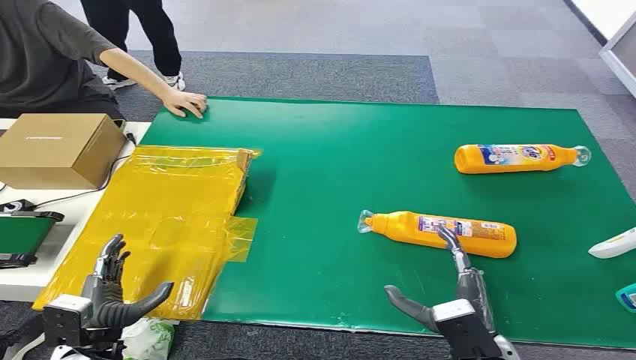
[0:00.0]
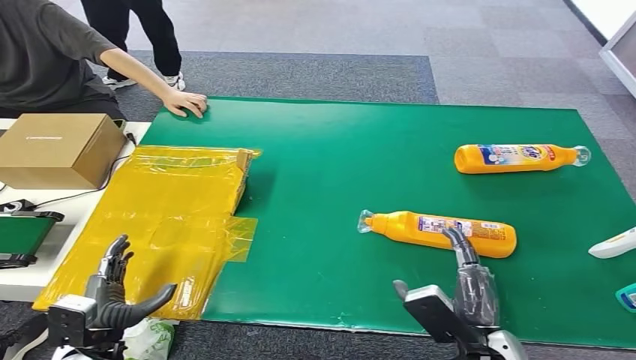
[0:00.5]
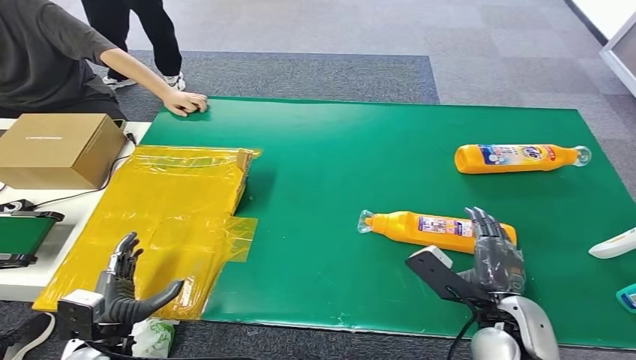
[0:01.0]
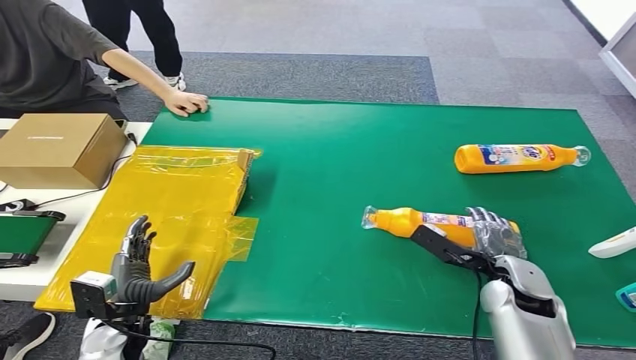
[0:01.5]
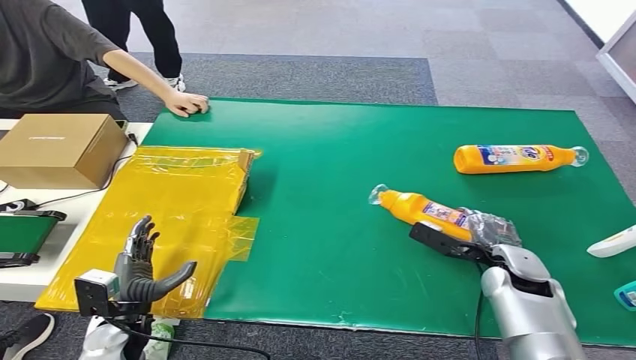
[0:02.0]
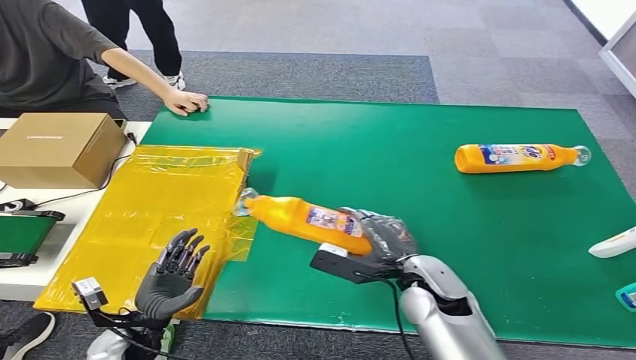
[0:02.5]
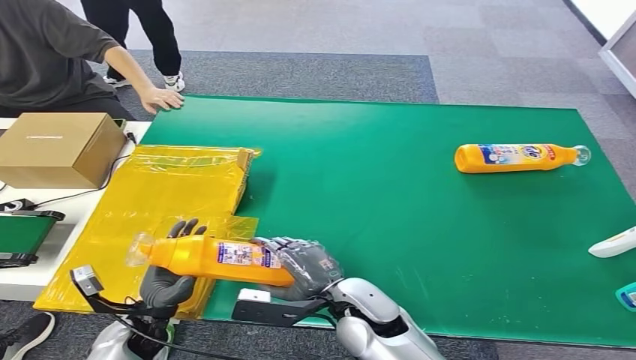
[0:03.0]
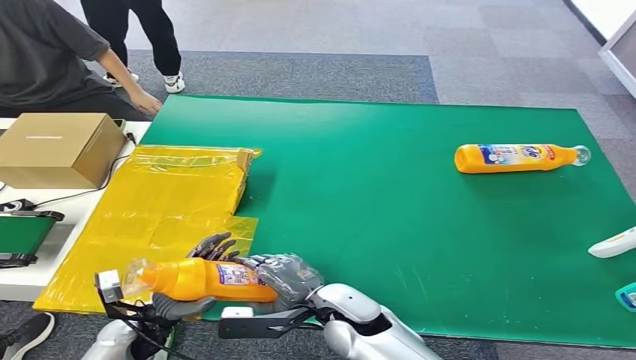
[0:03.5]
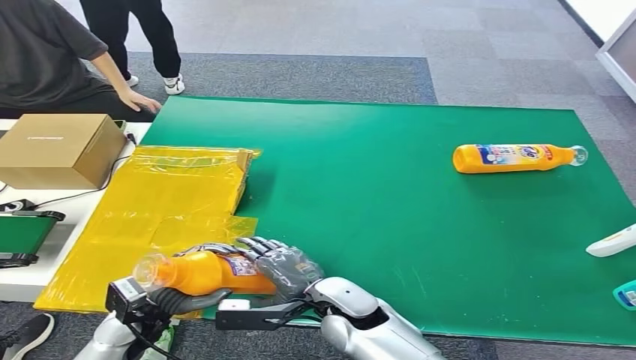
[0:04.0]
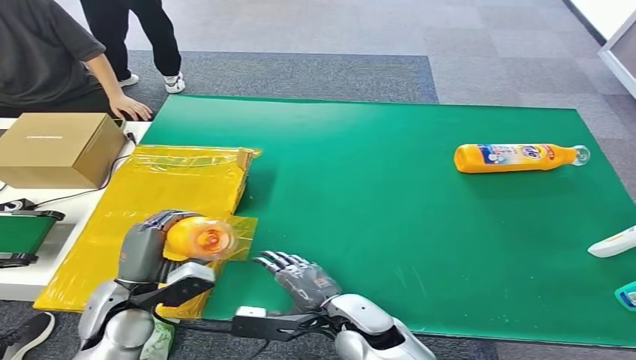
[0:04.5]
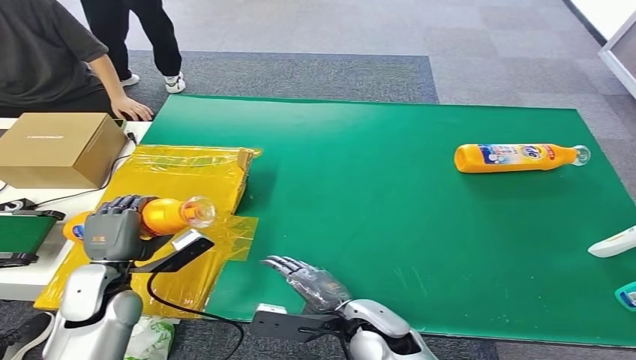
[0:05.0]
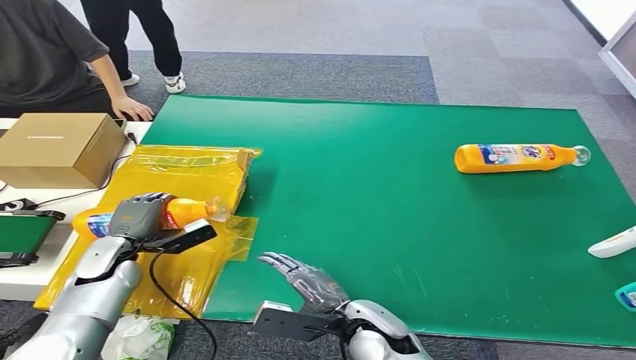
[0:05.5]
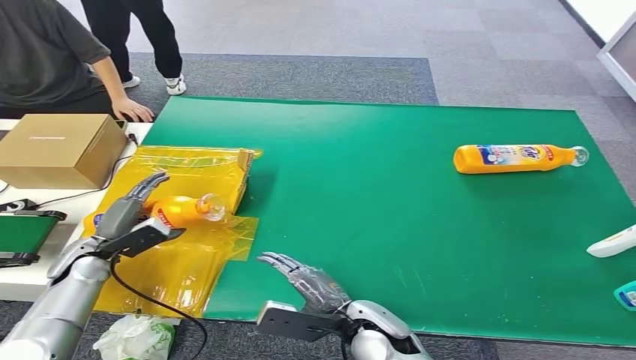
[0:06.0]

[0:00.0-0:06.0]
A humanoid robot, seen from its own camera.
Step, 0:00.0 to 0:02.5: Pick up the bottle from the table.
Step, 0:03.0 to 0:06.0: Turn the bottle to the front side.
0:04.0 to 0:06.0: The left hand heads forward and to the left, covering some 15 cm. The right hand changes place by roughly 5 cm.
